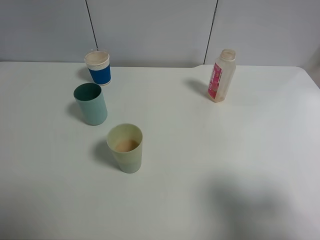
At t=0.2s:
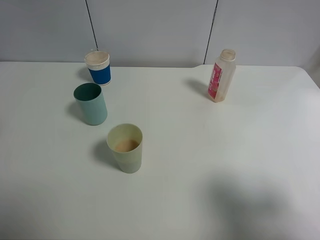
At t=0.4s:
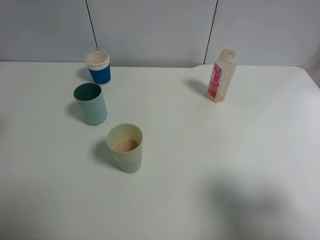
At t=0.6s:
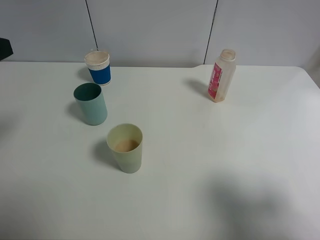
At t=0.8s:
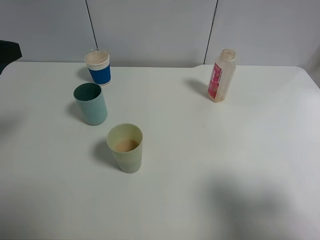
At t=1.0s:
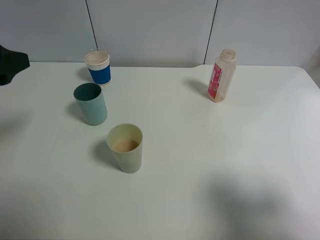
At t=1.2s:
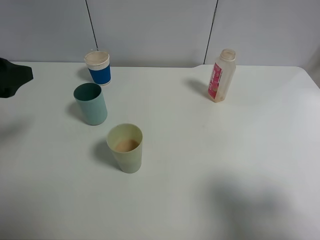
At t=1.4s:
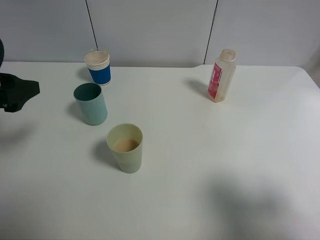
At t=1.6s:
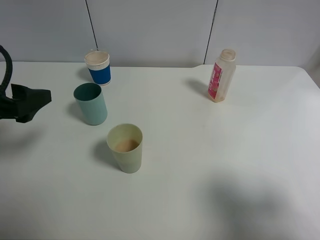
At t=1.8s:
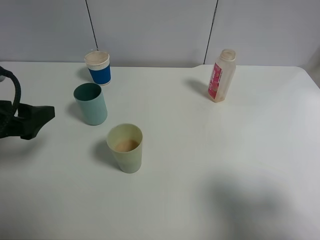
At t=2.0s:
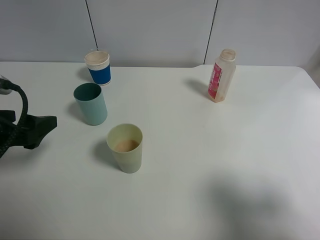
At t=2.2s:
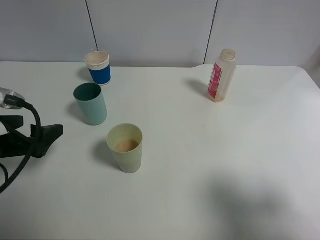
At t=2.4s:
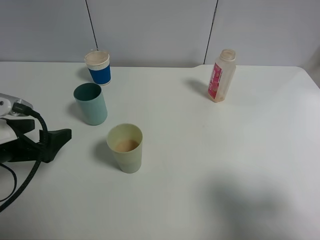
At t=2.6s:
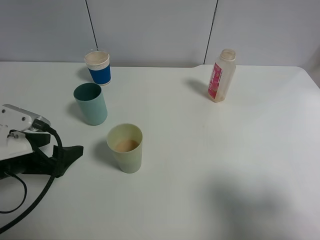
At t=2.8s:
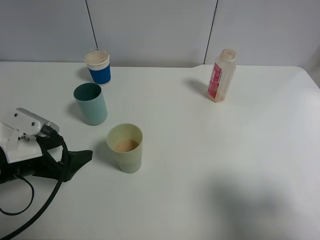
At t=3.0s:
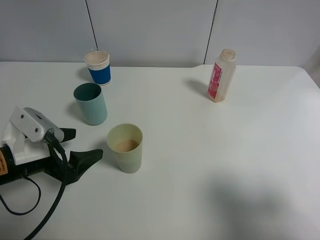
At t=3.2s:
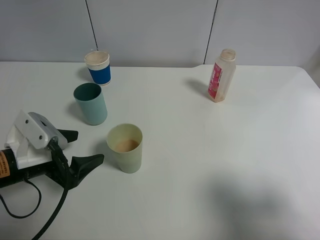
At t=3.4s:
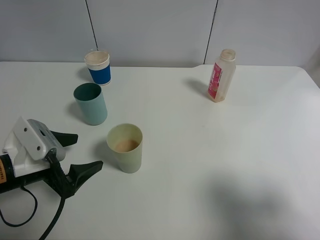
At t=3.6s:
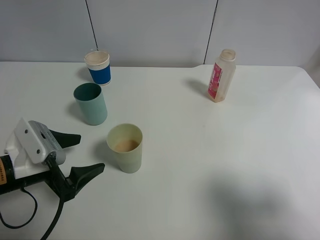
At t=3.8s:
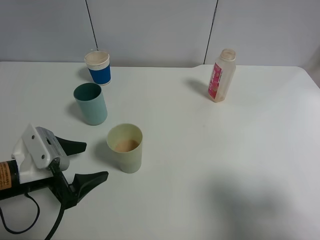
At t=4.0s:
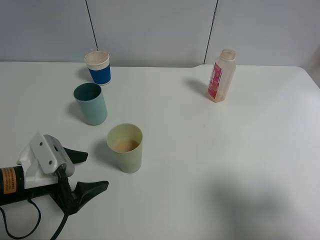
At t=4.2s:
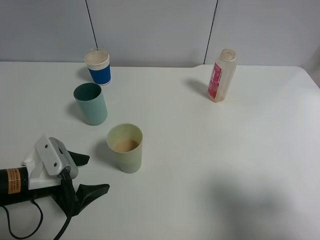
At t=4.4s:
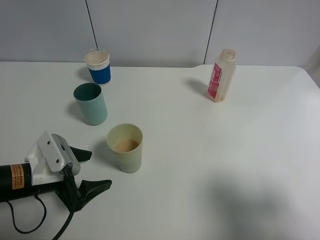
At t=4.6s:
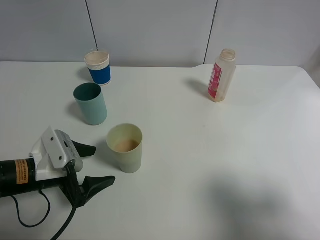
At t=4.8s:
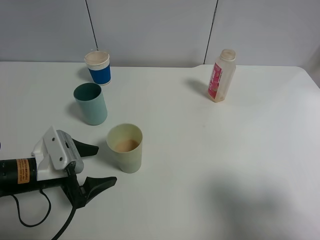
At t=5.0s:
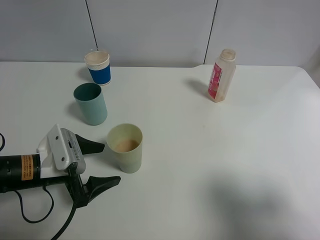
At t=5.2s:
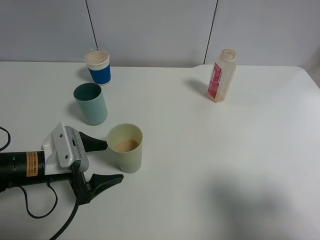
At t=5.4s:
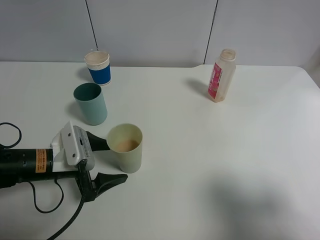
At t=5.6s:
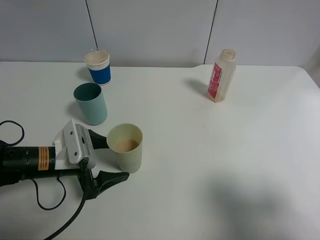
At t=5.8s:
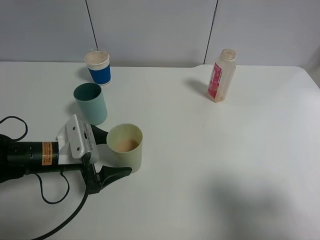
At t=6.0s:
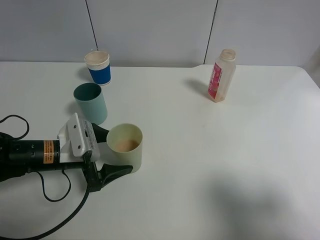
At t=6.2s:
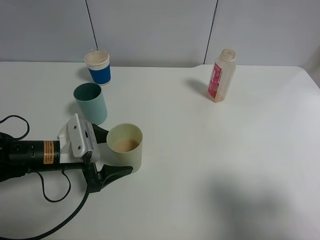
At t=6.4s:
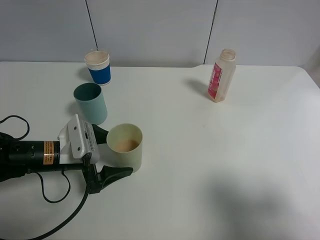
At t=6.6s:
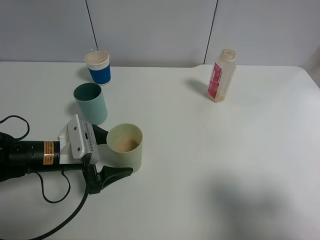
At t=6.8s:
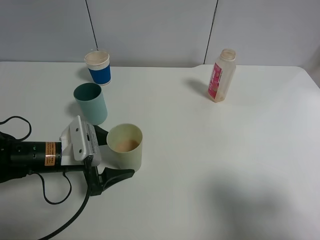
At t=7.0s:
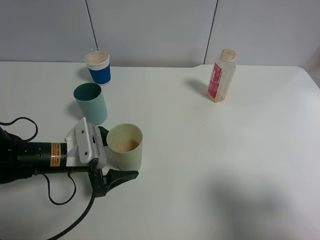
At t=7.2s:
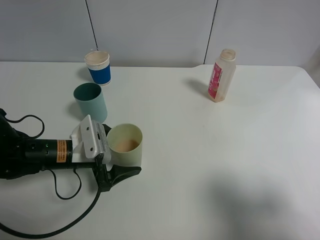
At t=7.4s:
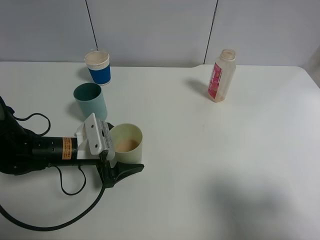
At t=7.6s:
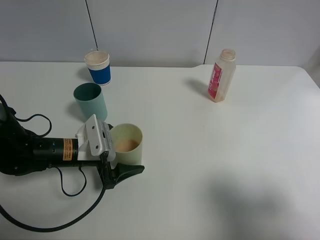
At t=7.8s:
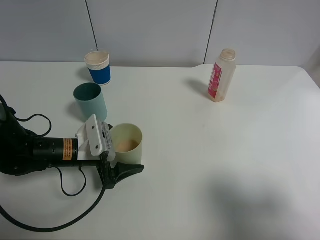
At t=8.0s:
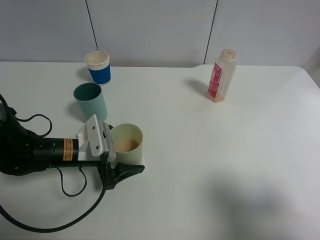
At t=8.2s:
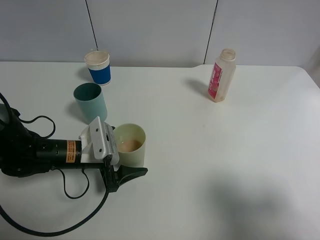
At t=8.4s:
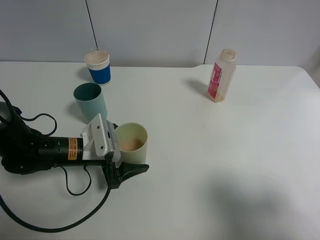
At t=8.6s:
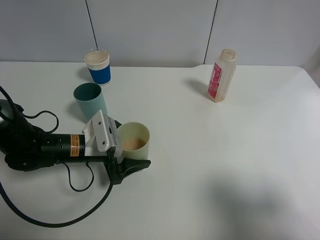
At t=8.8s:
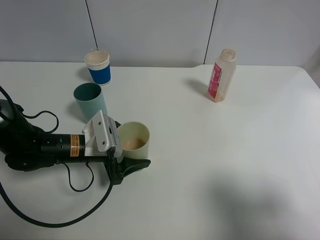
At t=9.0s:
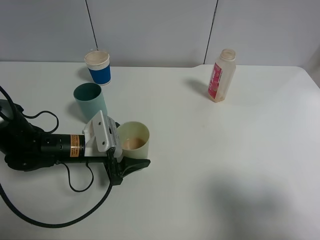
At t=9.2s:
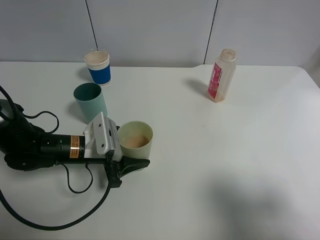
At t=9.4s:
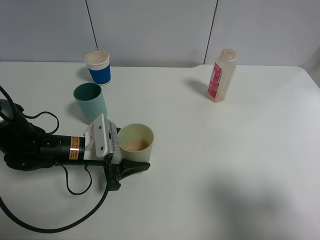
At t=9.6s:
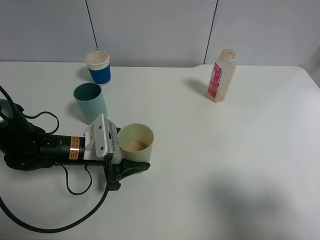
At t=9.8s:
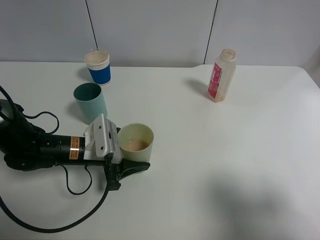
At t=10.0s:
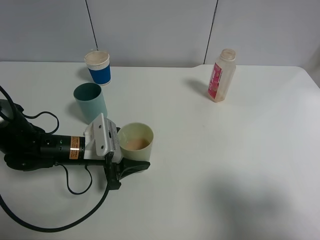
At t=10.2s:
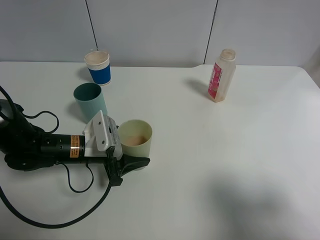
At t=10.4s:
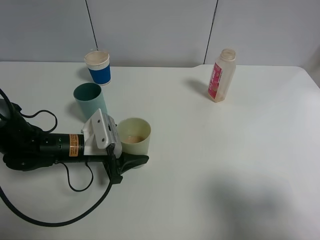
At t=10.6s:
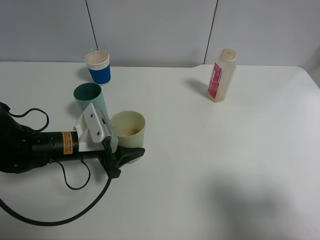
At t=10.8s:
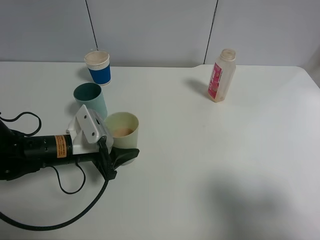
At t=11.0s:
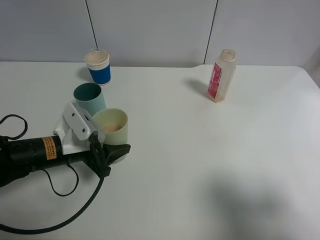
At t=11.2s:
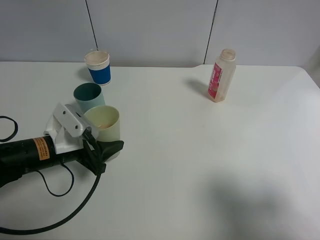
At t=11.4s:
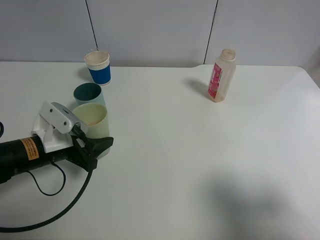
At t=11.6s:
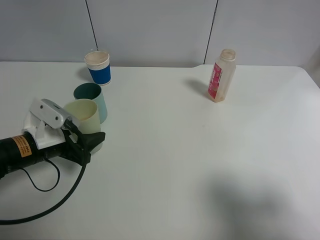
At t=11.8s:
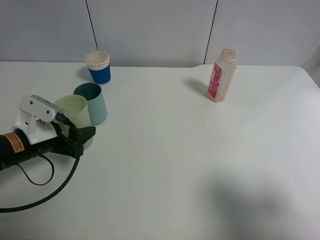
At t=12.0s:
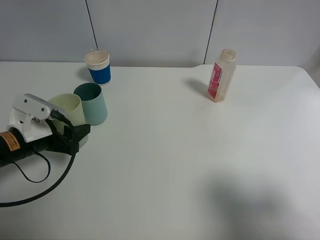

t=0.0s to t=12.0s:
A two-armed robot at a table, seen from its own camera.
Task of the whole recording: use a clamp to hold the bottle of the drink, pour the beverage into a random cup, then clamp the cup containing the drink and pour the drink into another random cup.
Step, t=0.0s to t=10.6s: Pick up the green plastic cup bottle with left gripper.
t=0.0s to t=1.6s: The left gripper is displaced forward and downward by approximately 15 cm.
t=1.6s to t=3.0s: The left gripper heads downward, covering about 10 cm.
t=3.0s to t=4.4s: The grippers stay close to where they were, moving slightly.
t=4.4s to t=6.0s: The left gripper moves forward, approximately 5 cm.
t=6.0s to t=9.0s: There are only small adjustments of the grippers.
t=9.0s to t=10.4s: The left gripper closes up.
t=10.4s to t=12.0s: The left gripper goes roughly 10 cm to the left.

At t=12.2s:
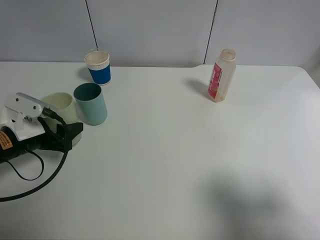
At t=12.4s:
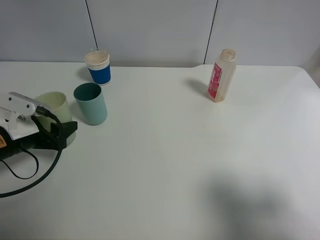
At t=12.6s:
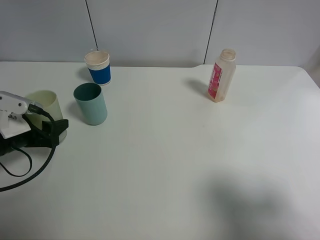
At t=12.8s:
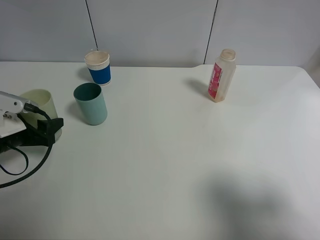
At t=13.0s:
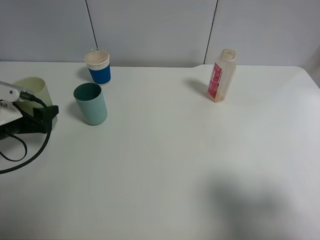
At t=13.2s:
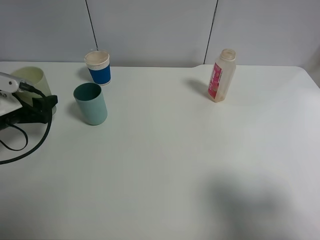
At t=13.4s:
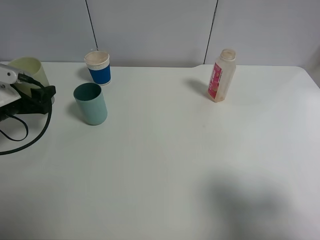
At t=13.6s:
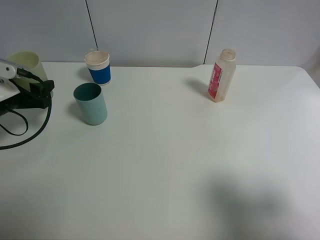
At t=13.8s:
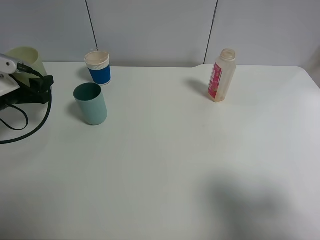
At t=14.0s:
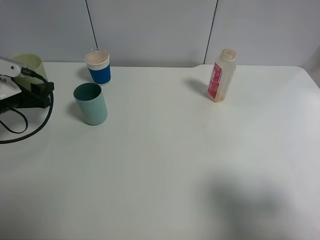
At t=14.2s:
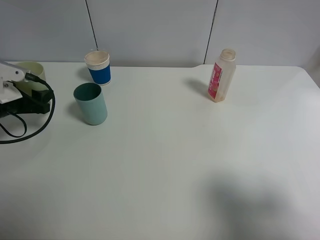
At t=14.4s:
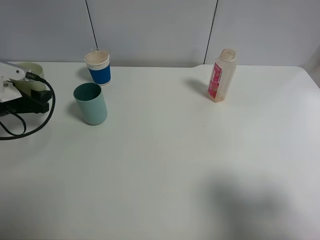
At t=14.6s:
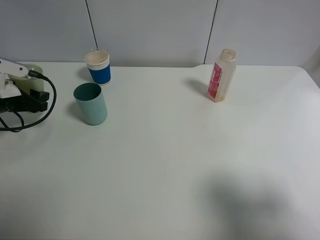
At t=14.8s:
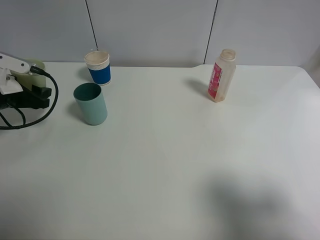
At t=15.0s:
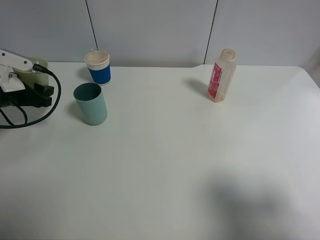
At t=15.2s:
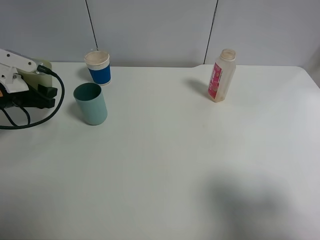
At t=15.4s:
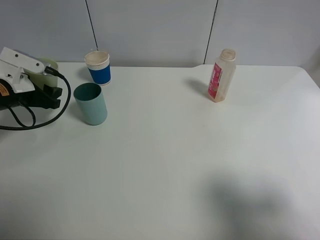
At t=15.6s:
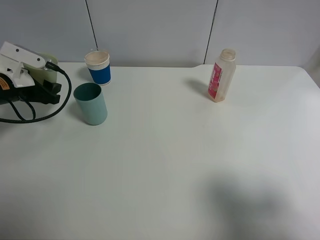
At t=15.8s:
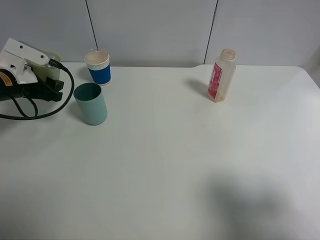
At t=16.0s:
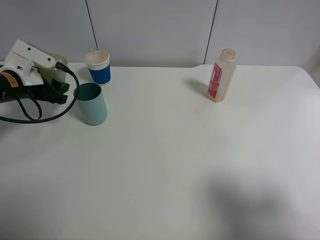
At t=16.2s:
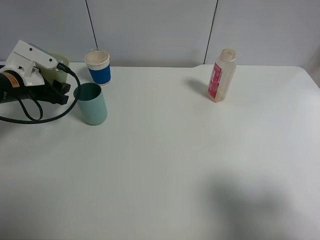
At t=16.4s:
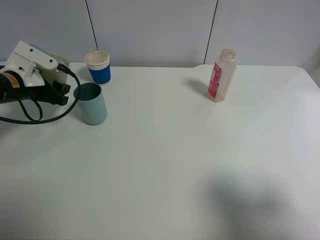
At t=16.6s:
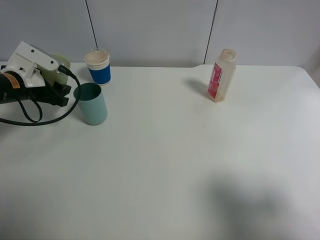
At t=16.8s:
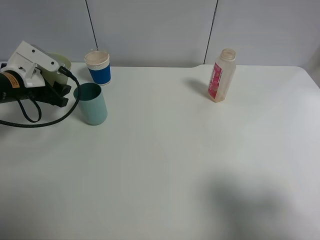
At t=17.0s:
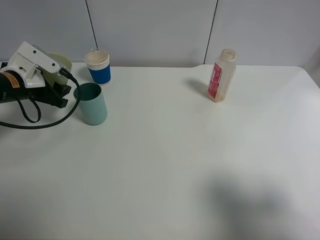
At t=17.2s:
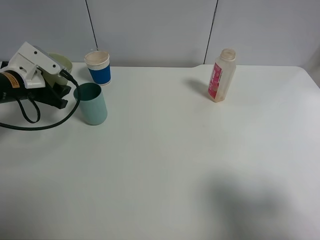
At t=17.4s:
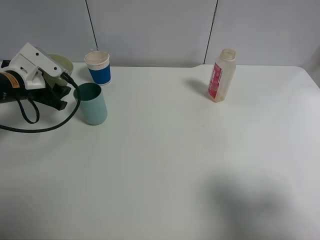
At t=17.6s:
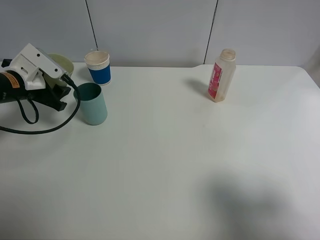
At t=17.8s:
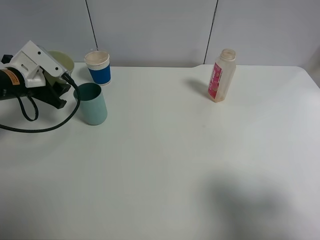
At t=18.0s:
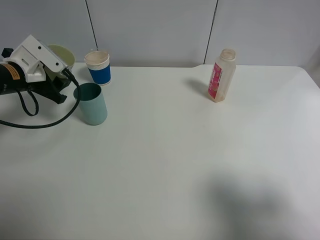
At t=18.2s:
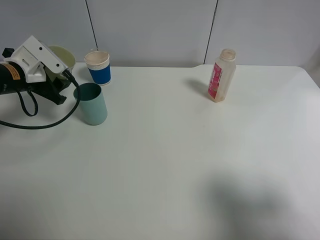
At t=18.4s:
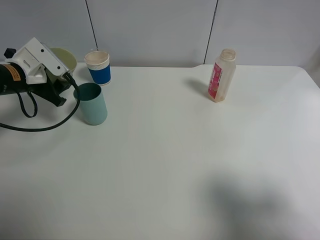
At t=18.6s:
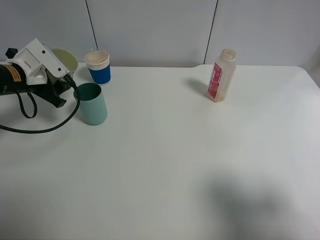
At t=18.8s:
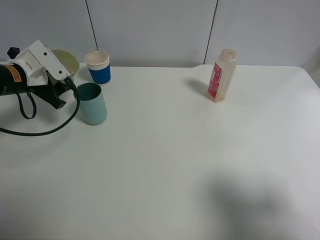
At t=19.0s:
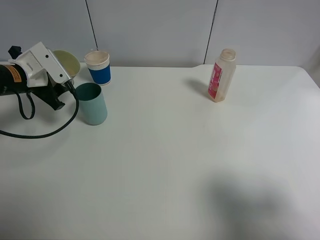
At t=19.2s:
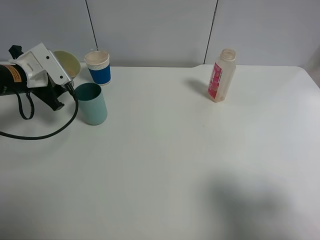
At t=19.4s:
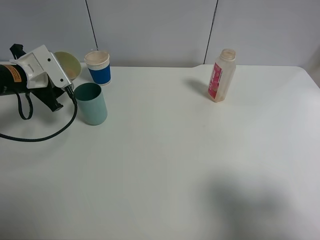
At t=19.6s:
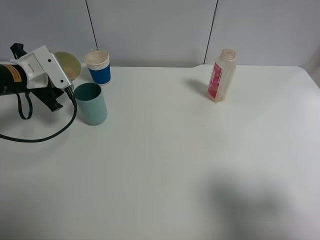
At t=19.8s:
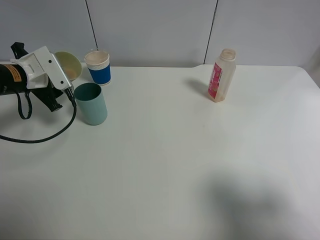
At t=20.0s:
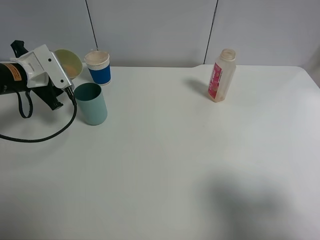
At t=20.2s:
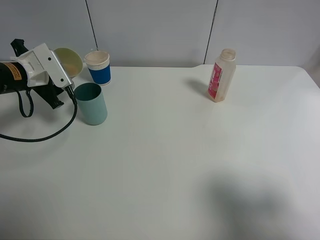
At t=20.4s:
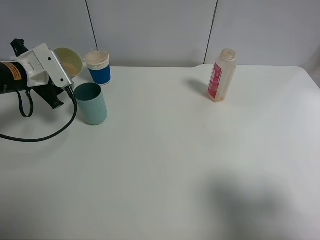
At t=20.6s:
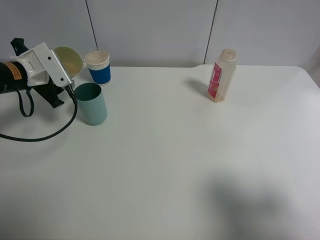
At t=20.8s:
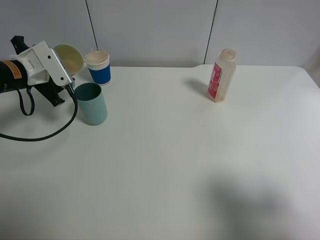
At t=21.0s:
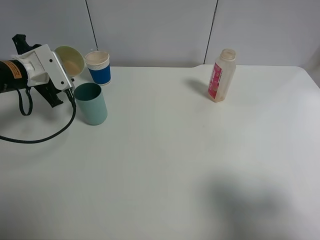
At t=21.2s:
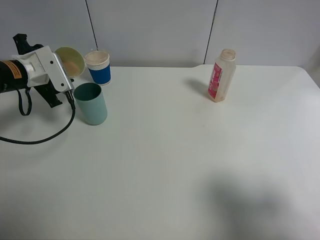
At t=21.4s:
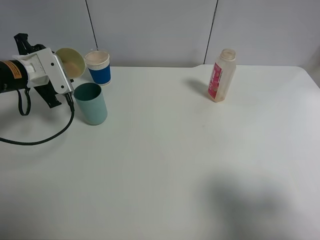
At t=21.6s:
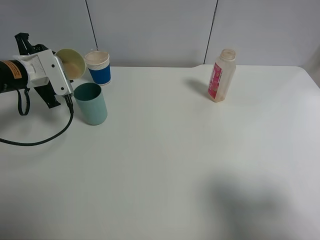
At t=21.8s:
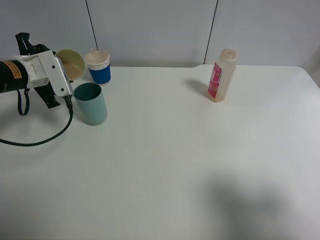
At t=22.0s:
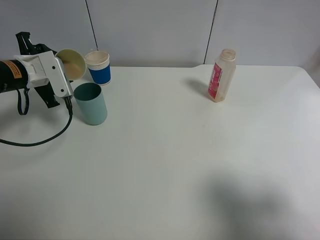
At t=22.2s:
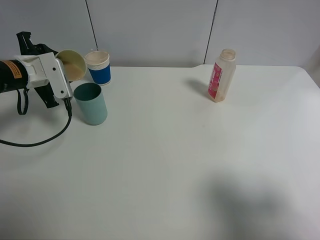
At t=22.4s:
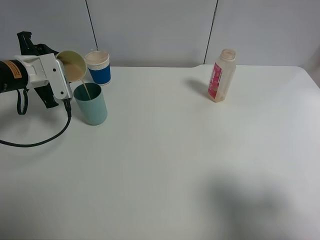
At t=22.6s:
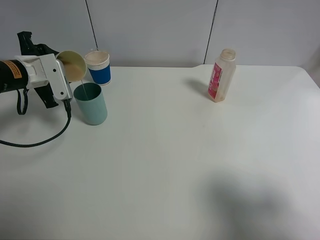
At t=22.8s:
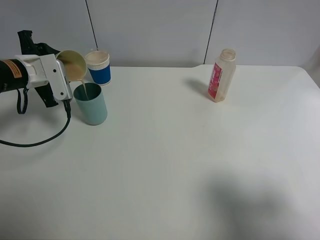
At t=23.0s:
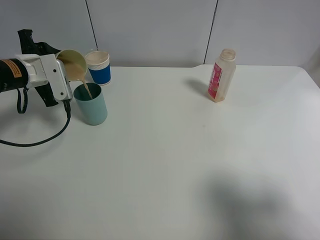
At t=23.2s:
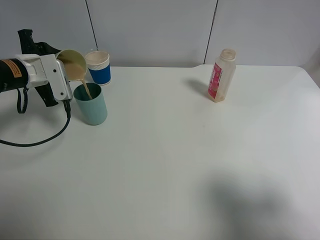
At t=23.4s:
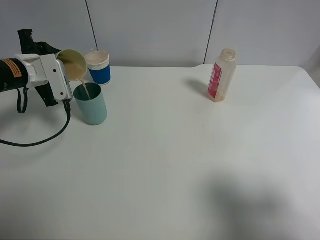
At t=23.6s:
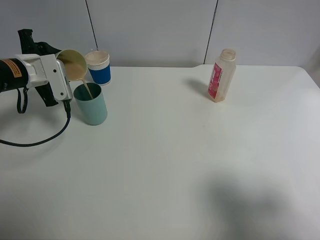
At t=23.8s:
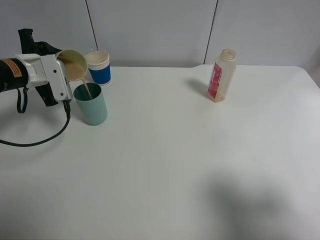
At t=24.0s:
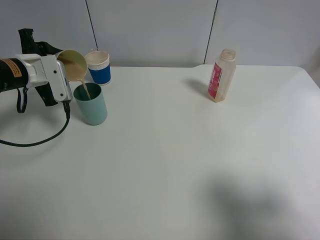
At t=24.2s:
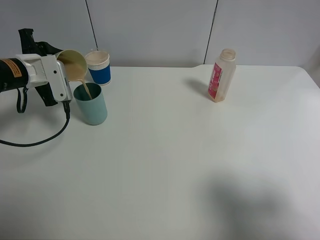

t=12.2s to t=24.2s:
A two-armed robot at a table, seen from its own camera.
Task of the whole recording: use a clamp to hold the bottle of the drink, pour the beverage into a random cup, then clamp the cup containing the drink and pour the drink into another random cup.
t=12.2s to t=13.8s: The left gripper shifts some 10 cm forward and to the left.
t=13.8s to t=15.2s: The grippers move only a little.
t=15.2s to t=16.6s: The grippers move only a little.
t=16.6s to t=18.2s: The grippers move only a little.
t=18.2s to t=19.8s: The grippers stay close to where they were, moving slightly.
t=19.8s to t=22.6s: The grippers make only small movements.
t=22.6s to t=24.2s: Neither gripper changes place.
